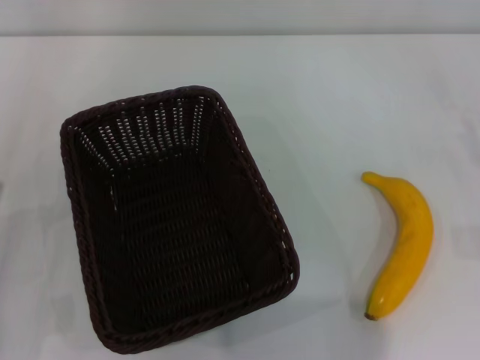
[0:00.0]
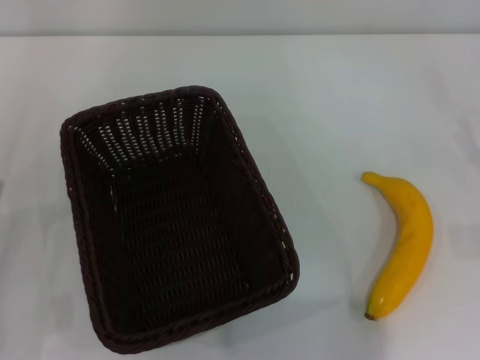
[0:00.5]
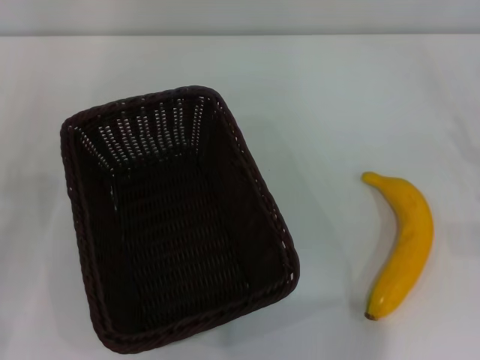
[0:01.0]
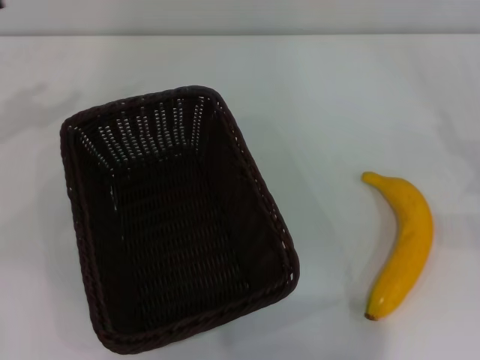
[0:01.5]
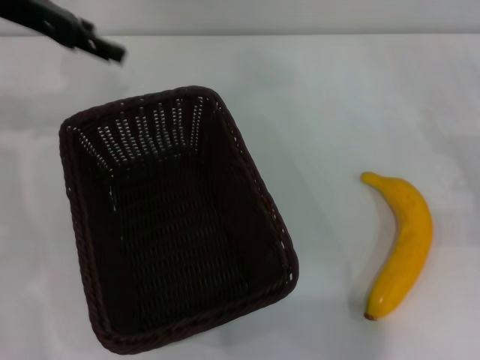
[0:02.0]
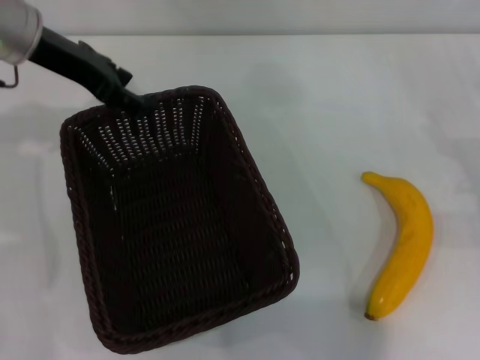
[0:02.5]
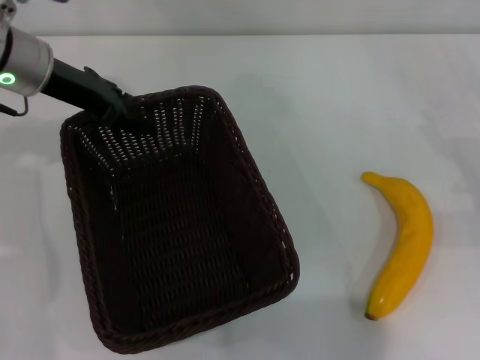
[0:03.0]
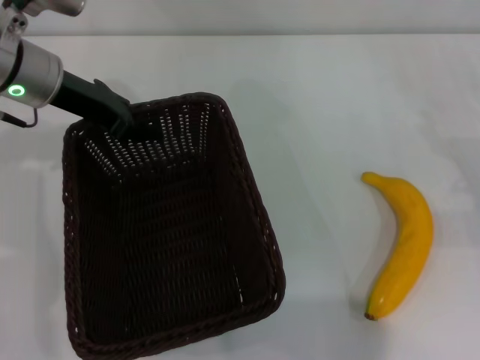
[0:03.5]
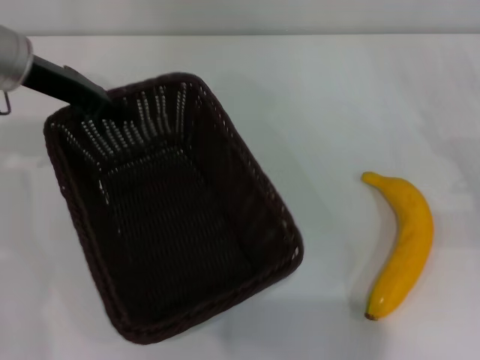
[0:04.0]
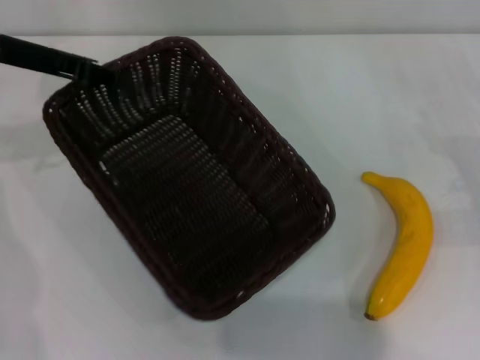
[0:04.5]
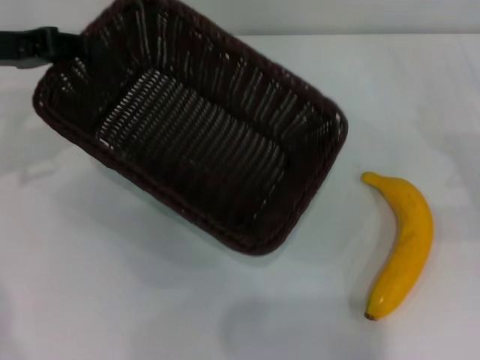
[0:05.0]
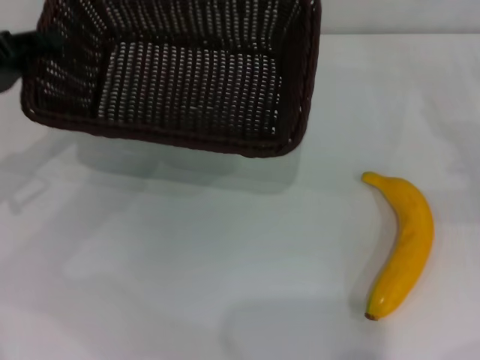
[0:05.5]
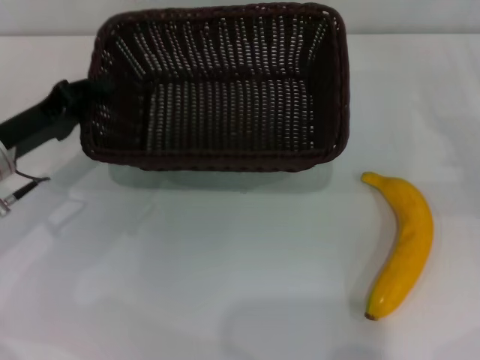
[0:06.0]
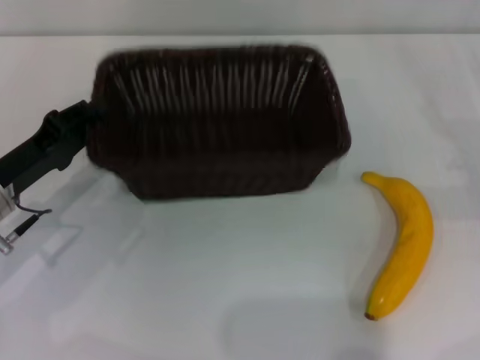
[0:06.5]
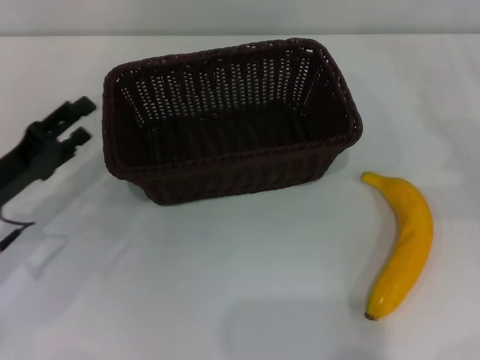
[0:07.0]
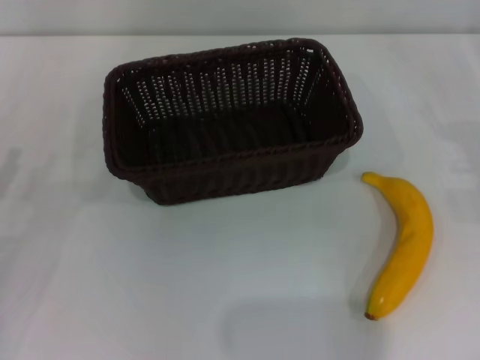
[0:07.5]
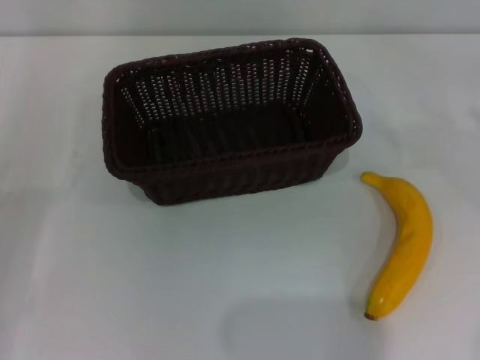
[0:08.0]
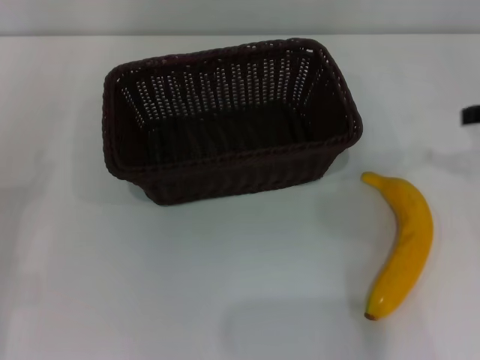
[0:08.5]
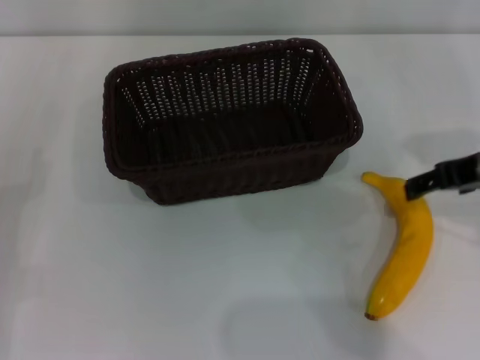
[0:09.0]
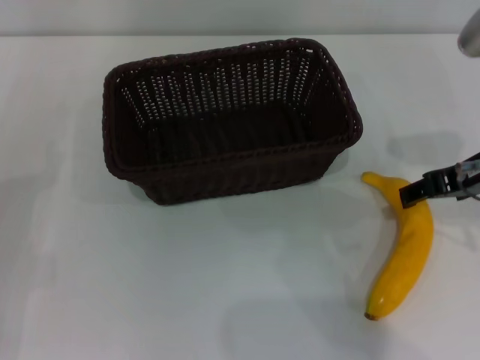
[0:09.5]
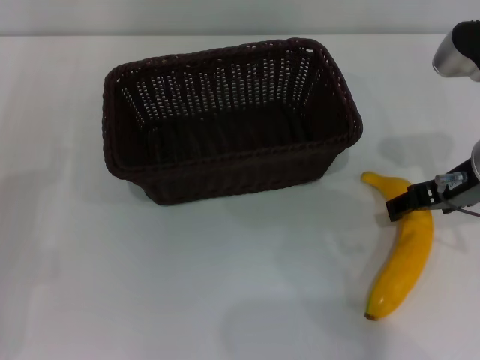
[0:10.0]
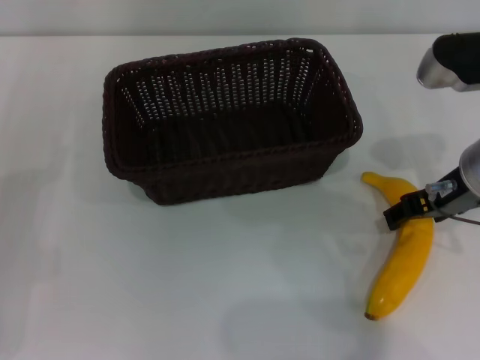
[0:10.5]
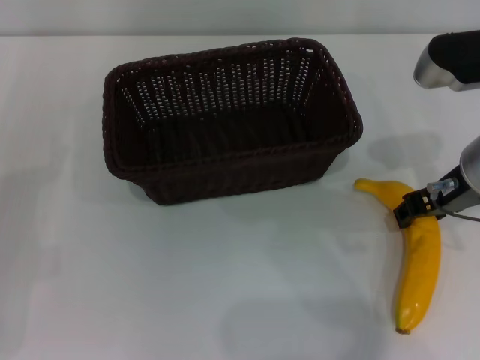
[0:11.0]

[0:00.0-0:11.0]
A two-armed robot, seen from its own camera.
Step, 0:00.0 to 0:04.0: Pick up the dark basket with the left gripper.
Step, 0:04.5 to 0:07.0: Place the dark basket in the center of view with the left gripper.
0:00.0 to 0:02.0: The left gripper shifts roughly 35 cm forward and upward.
0:02.0 to 0:03.5: The left gripper shifts approximately 10 cm downward, and closes its fingers.
0:03.5 to 0:05.5: The left gripper goes about 15 cm to the left and backward.
0:05.5 to 0:07.5: The left gripper goes approximately 15 cm backward and downward, and opens.
0:07.5 to 0:09.0: The right gripper goes approximately 20 cm to the left and upward.
0:09.0 to 0:11.0: The right gripper moves approximately 5 cm, and closes its fingers.

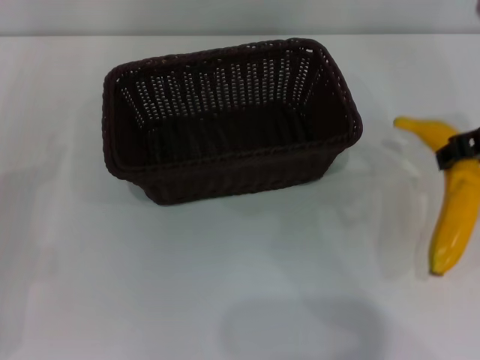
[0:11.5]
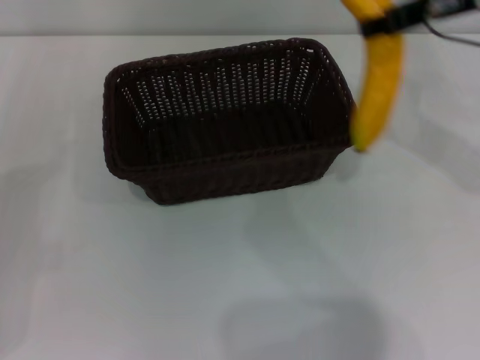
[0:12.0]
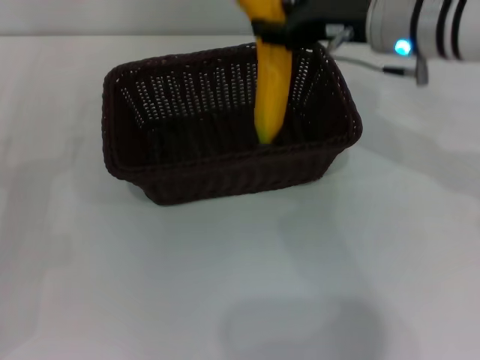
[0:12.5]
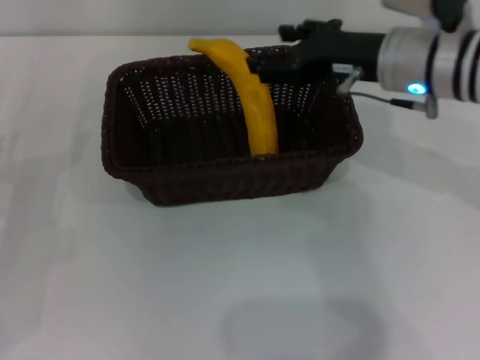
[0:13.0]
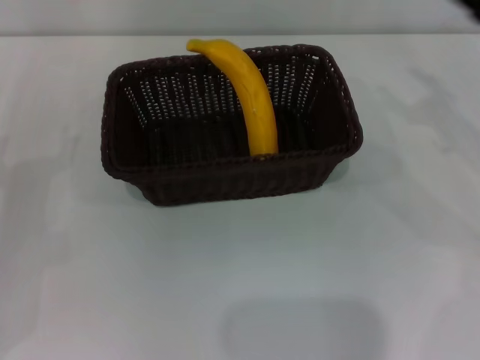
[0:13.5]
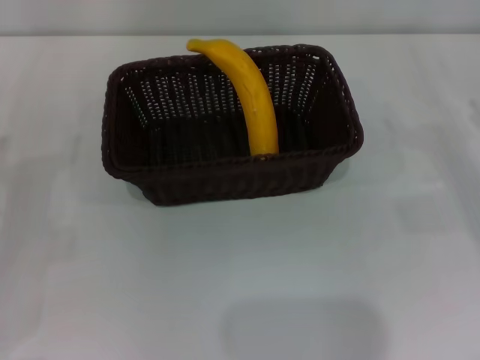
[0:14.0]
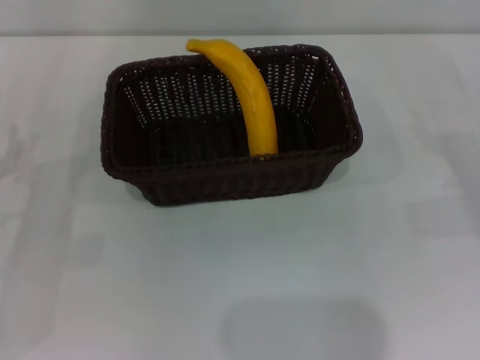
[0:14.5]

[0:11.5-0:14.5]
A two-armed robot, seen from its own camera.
Step, 0:11.5 to 0:13.0: Place the banana into the dark basket with the right gripper.
0:11.5 to 0:13.0: The right gripper moves to the left and forward, about 10 cm, and goes upward and returns, some 5 cm each way.
0:13.0 to 0:14.5: The right gripper goes about 25 cm to the right and downward, and opens.
